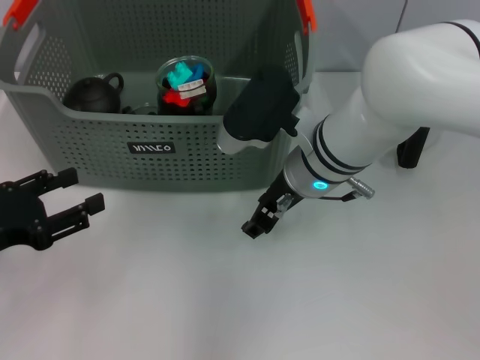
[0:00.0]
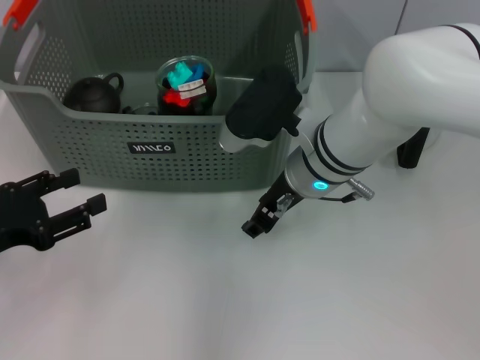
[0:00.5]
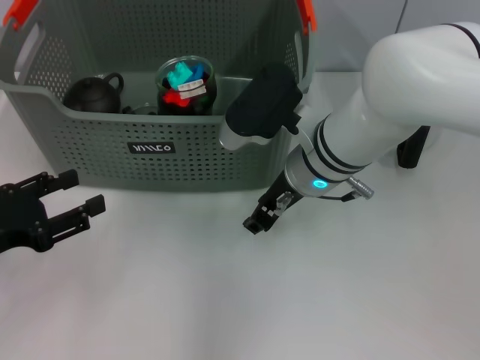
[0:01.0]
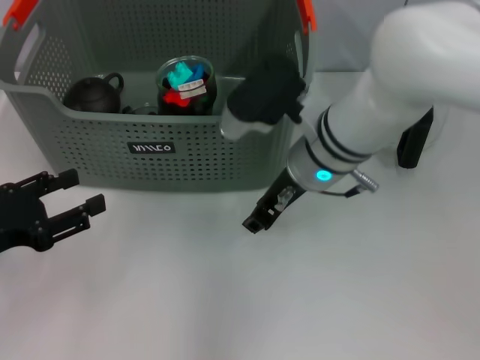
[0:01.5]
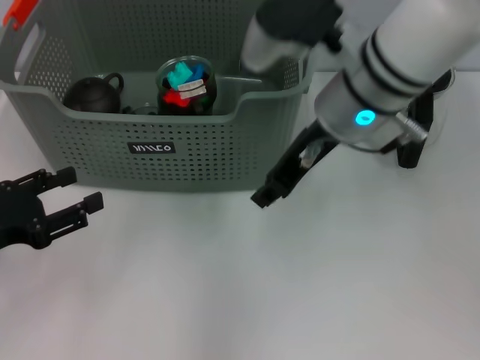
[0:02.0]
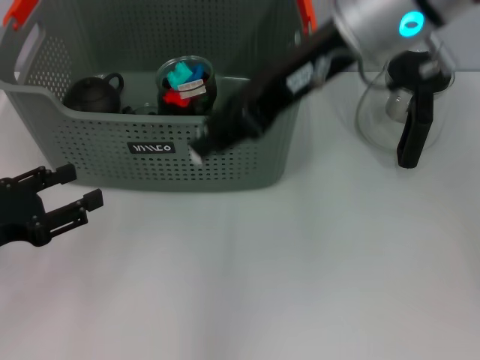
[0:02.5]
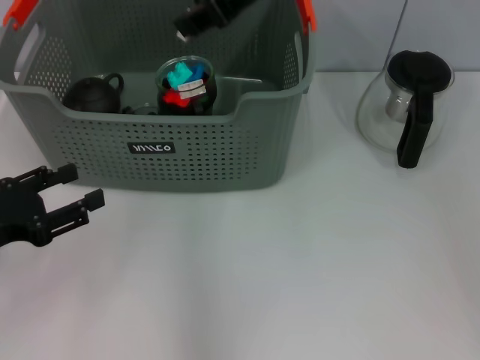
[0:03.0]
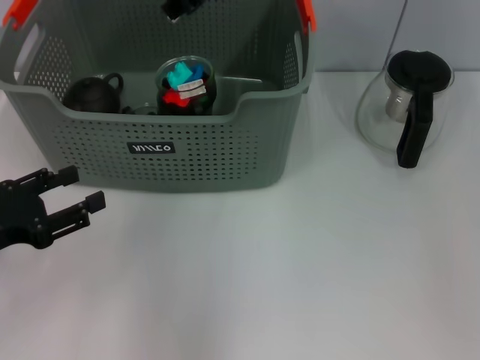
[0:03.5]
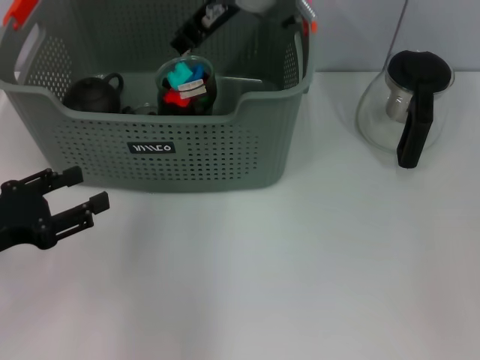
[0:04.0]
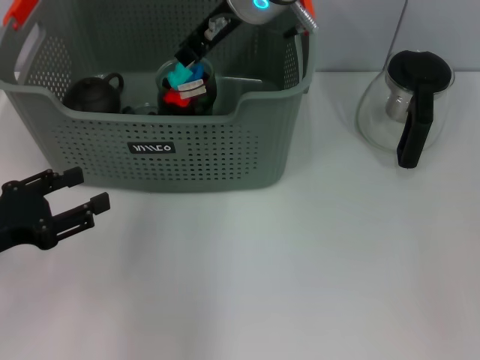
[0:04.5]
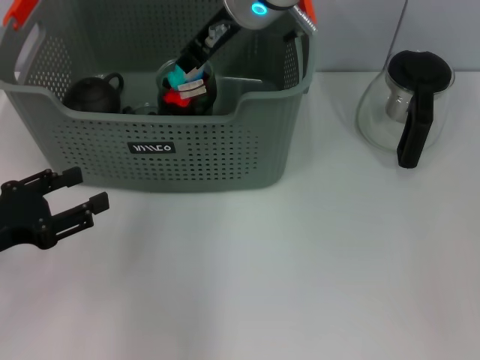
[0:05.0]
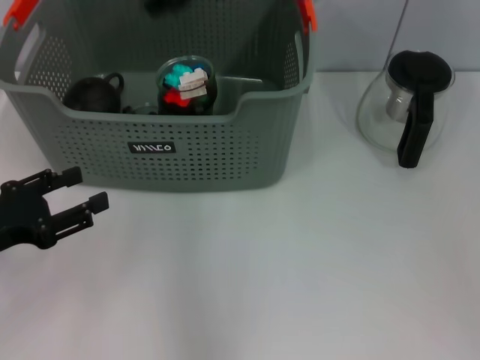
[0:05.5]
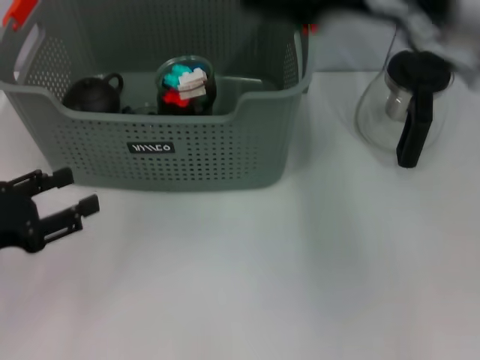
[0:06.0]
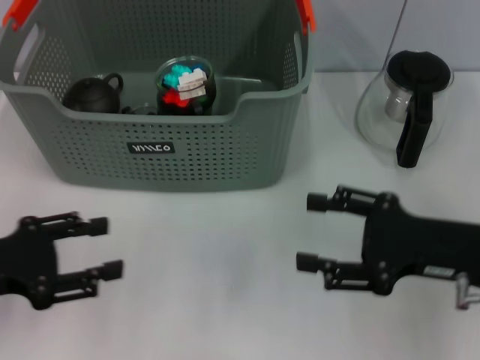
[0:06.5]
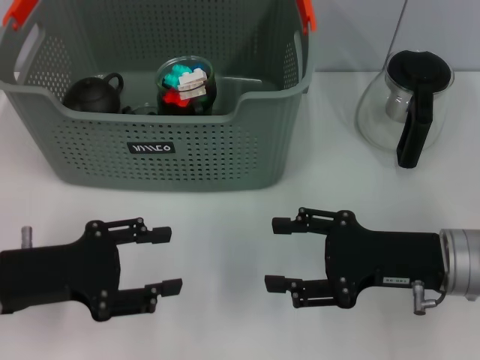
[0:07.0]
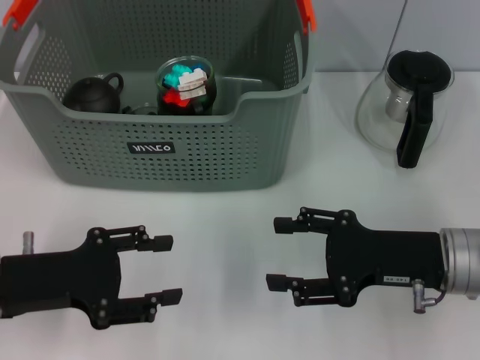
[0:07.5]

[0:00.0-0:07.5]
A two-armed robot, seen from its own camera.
Task of the whole recording: pick up the teacup on the table and place it into the storage bin, pick up the block on the table and place it into the storage bin.
Step, 0:01.5 to 0:05.0: Place the white block in the storage box with right gripper.
0:00.0 to 0:02.0: The right gripper shifts approximately 10 cm upward.
0:02.0 to 0:04.0: The right gripper travels to the left and forward by some 10 cm.
0:04.0 to 0:05.5: The grippers stay close to where they were, moving slightly.
0:05.5 to 0:07.5: The right gripper moves downward, to the right and backward, some 35 cm.

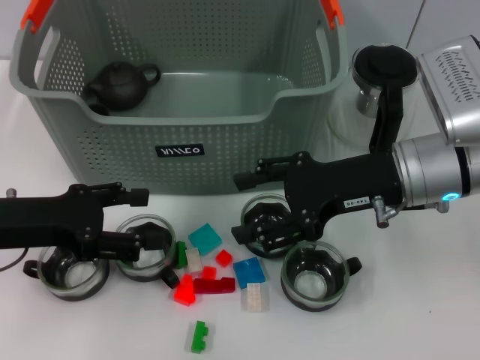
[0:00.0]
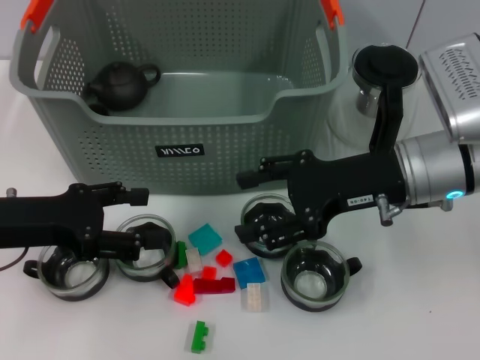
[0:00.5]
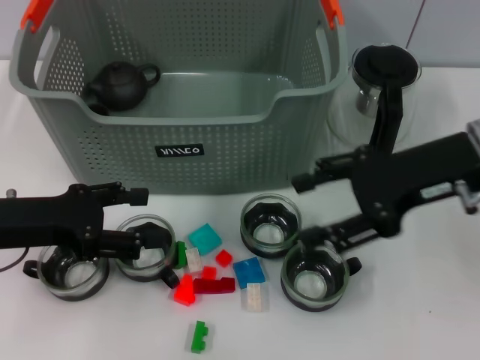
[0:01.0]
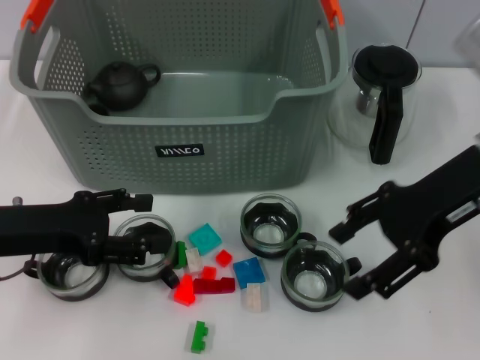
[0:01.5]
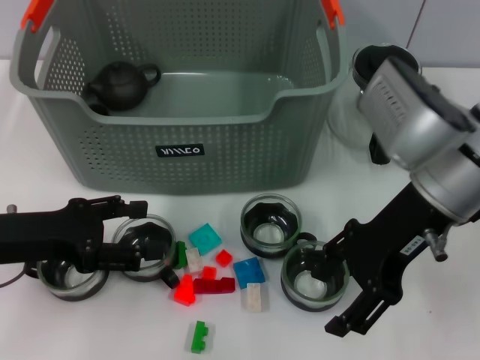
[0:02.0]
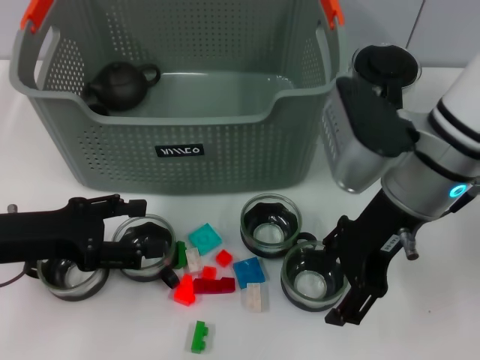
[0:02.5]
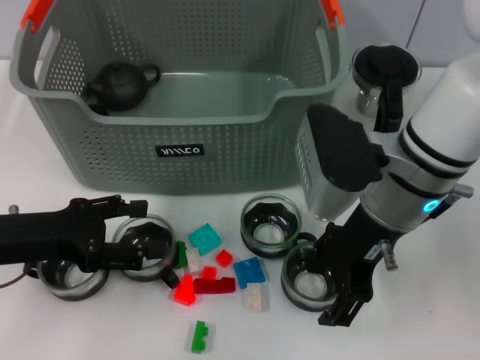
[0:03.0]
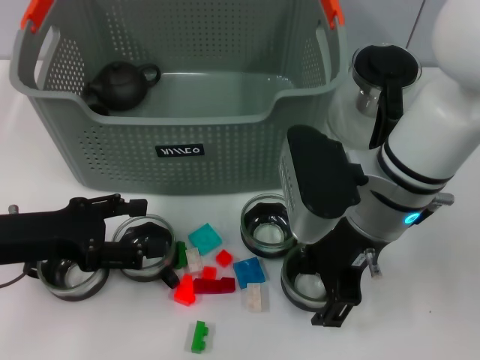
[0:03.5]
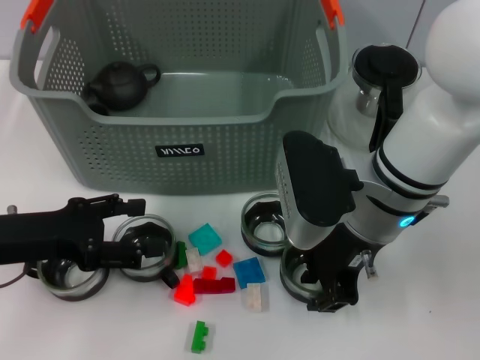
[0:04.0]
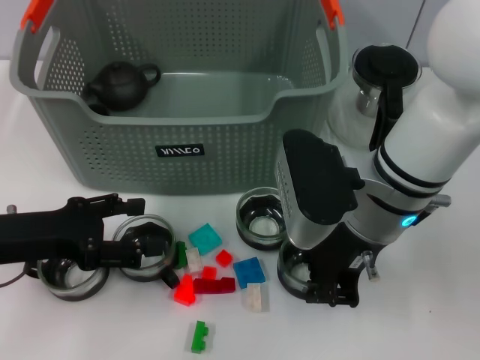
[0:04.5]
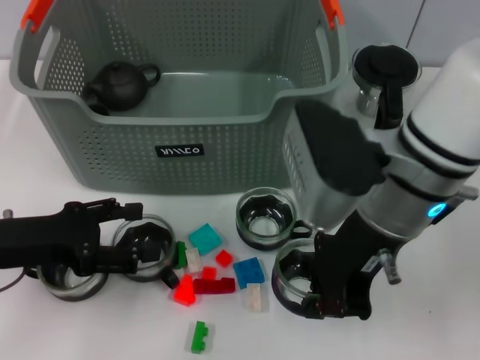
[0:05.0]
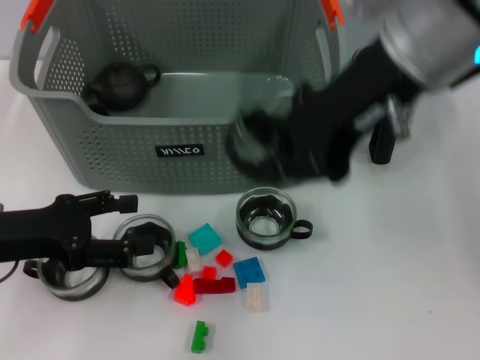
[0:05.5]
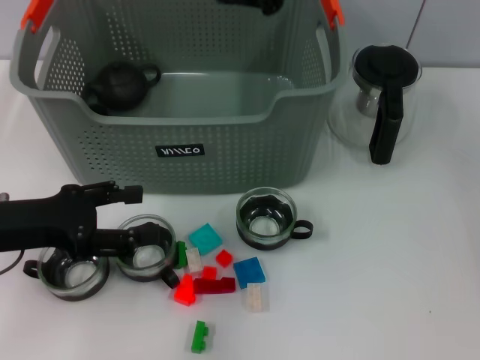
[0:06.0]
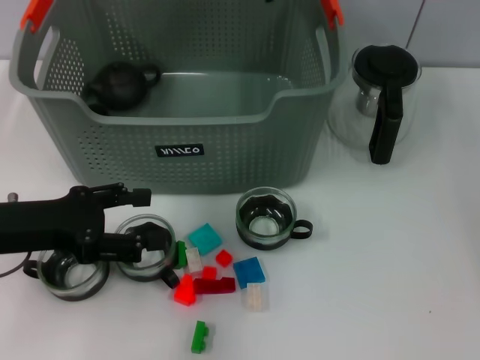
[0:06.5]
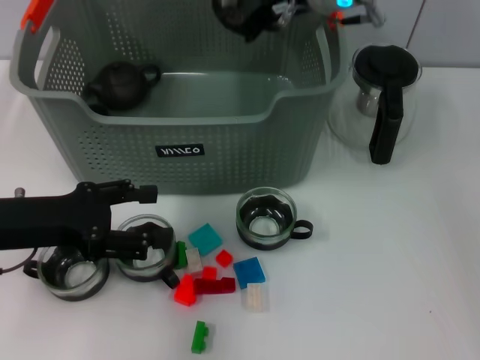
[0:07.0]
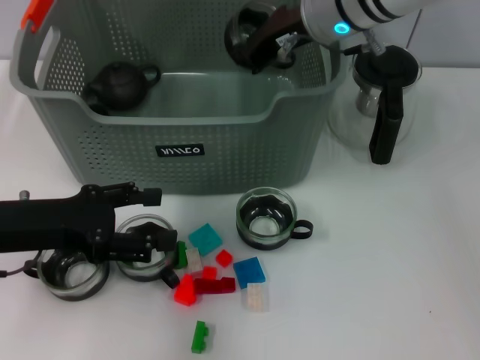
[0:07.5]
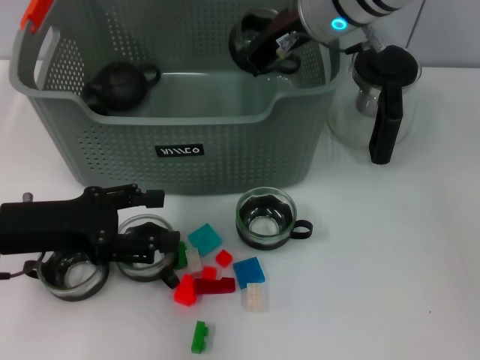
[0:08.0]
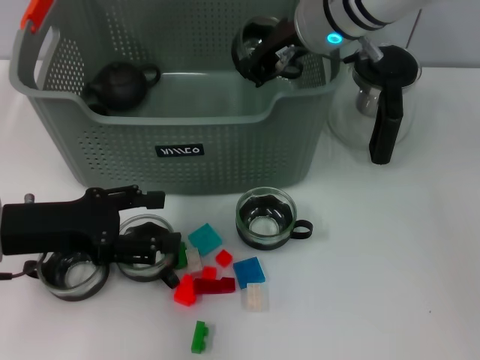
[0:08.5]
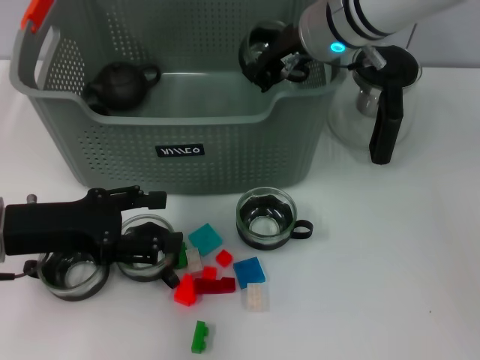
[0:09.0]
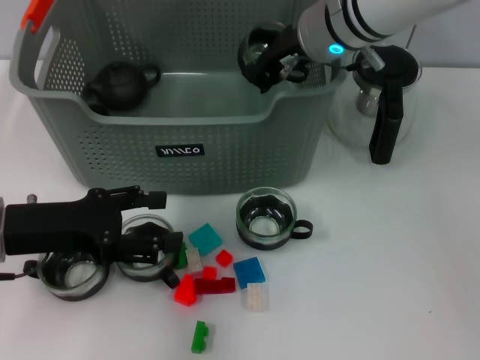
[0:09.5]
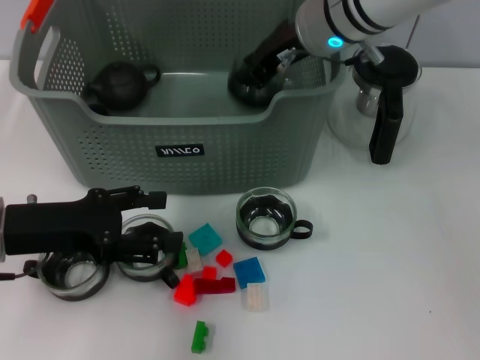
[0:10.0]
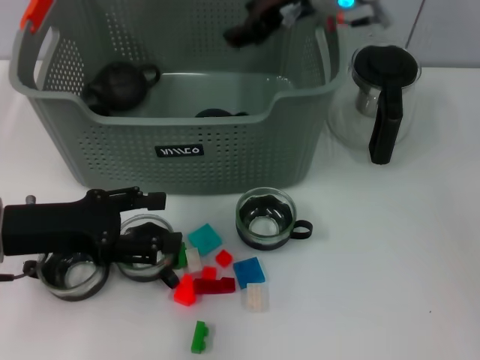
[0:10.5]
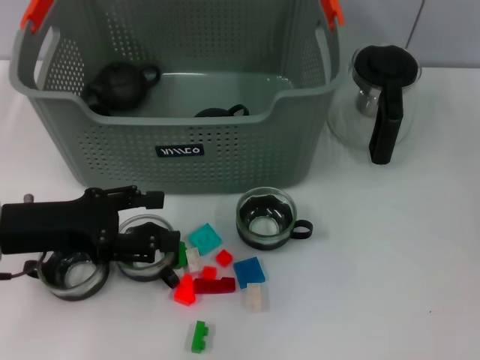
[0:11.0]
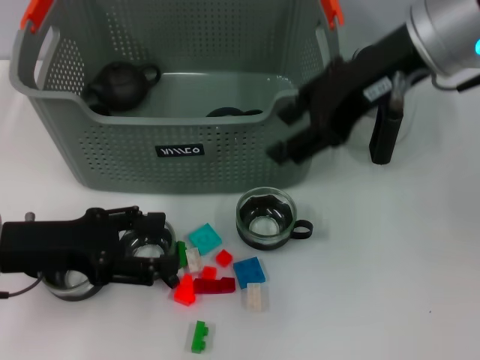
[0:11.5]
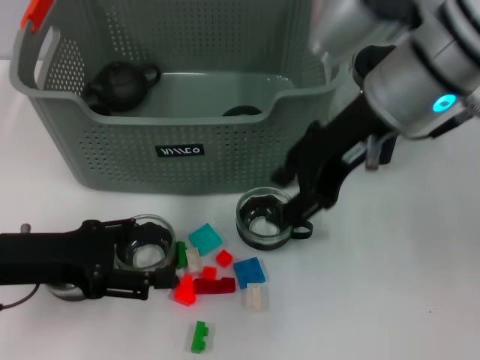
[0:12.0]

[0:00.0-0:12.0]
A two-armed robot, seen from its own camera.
Task of the whole recording: pick up the teacup on the table and place it into the storage bin, pick up the block on the table and place it into the storage bin.
Step, 0:00.0 to 0:04.0: Grasp the cup with right gripper.
Step, 0:05.0 to 0:10.0: Place the cup in the storage box with right gripper.
0:02.0 to 0:04.0: The right gripper heads to the left, covering some 5 cm, and closes up.
0:04.0 to 0:06.0: The right gripper goes approximately 20 cm upward, and closes its fingers.
0:06.0 to 0:08.0: The right gripper moves downward and forward, some 15 cm.
0:08.0 to 0:10.0: The grippers make only small movements.
0:10.0 to 0:12.0: The right gripper goes some 10 cm backward, and opens up.

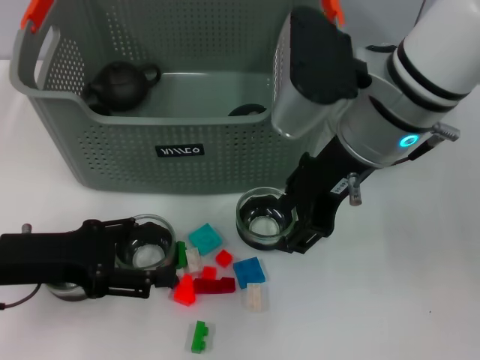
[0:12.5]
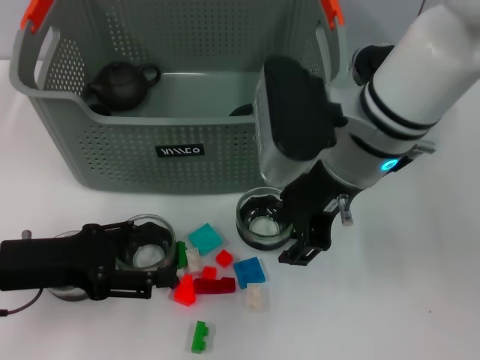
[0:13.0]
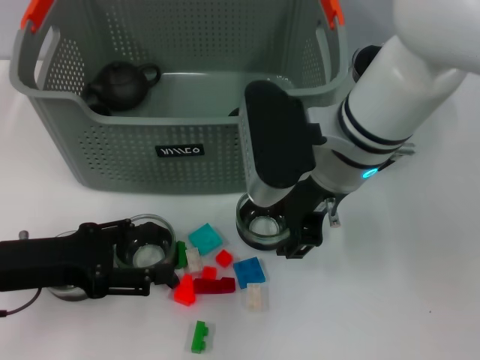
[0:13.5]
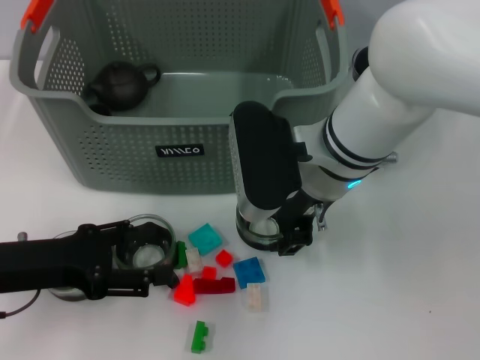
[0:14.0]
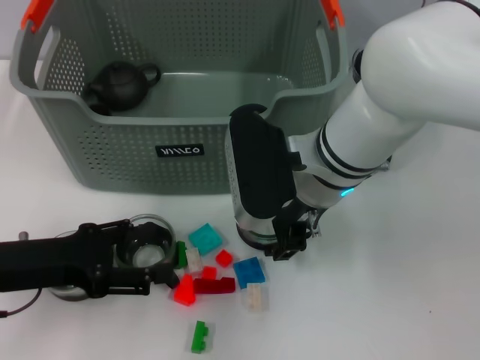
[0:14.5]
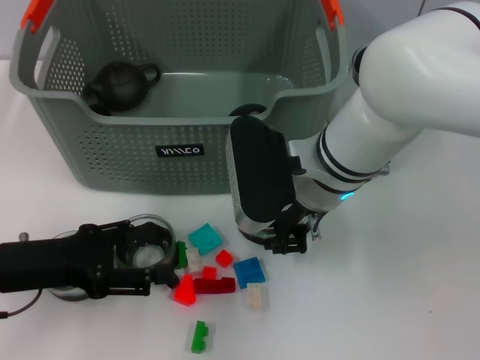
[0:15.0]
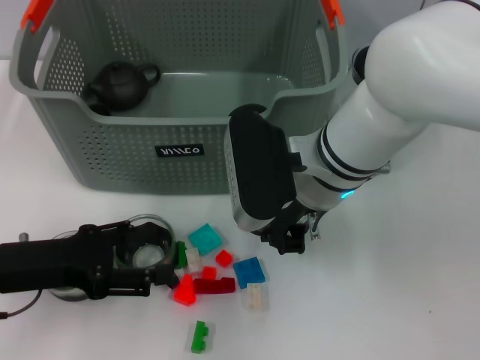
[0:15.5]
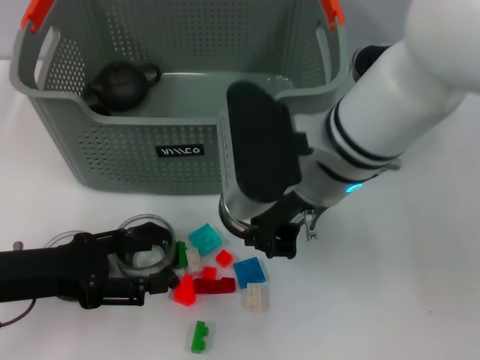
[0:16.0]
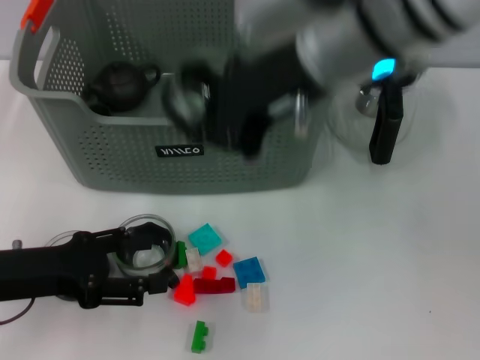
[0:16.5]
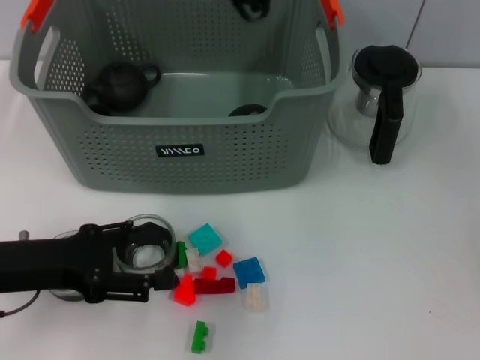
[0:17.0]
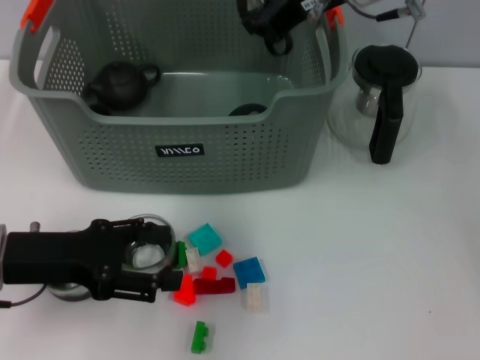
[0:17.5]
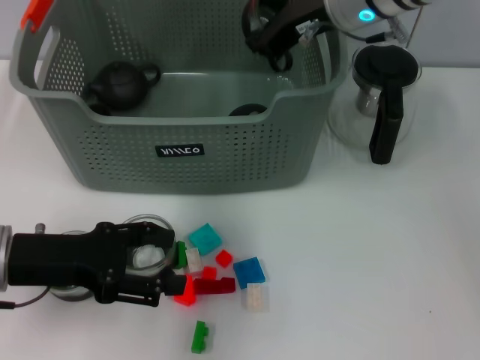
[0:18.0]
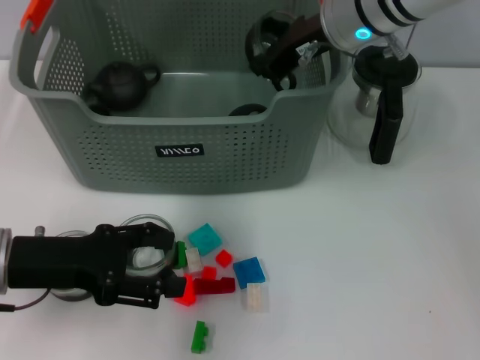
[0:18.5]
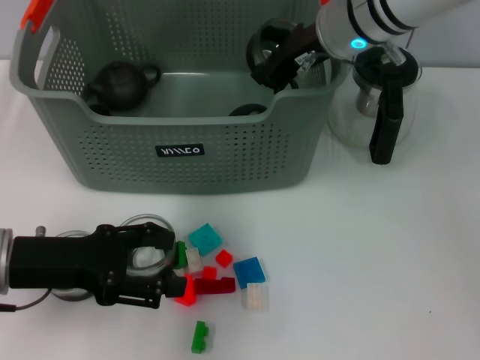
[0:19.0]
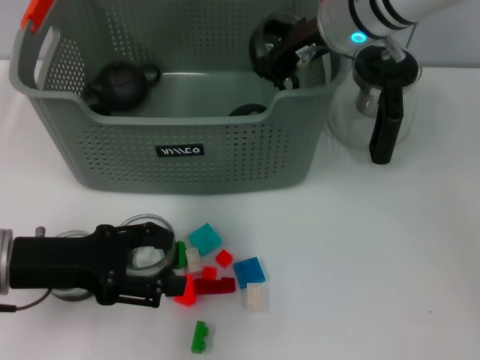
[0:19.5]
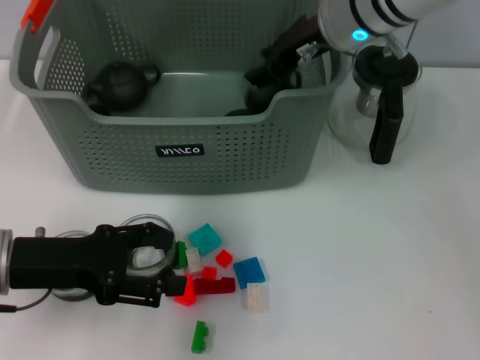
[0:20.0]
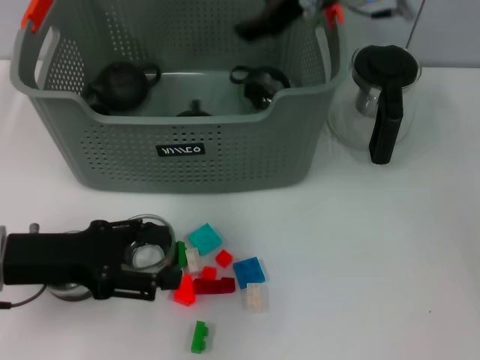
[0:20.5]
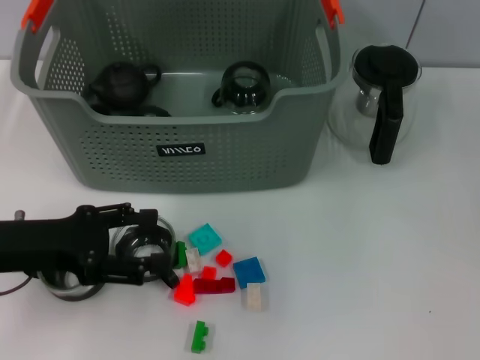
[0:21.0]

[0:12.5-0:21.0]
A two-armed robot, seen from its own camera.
Task of the whole recording: pick up the teacup on the table and place it into the storage bin, pick up the block on the table and place it into the storage bin.
Step, 0:12.5 to 0:15.0: Grasp the cup with right gripper.
Step, 0:15.5 to 0:20.5: Place the cup in the storage box with right gripper.
0:12.5 to 0:14.5: The right gripper moves downward, roughly 10 cm.
0:14.5 to 0:16.5: The right gripper travels upward by some 15 cm, and closes up.
0:16.5 to 0:19.0: The right gripper is displaced forward and downward by some 15 cm.
0:19.0 to 0:21.0: The right gripper heads upward, covering approximately 10 cm, and opens up.
